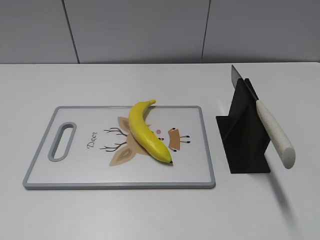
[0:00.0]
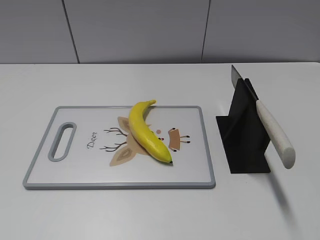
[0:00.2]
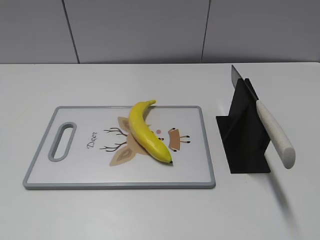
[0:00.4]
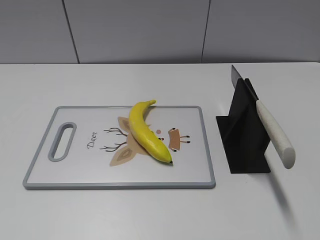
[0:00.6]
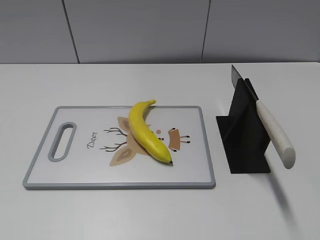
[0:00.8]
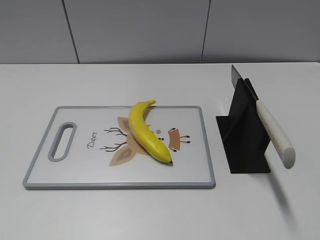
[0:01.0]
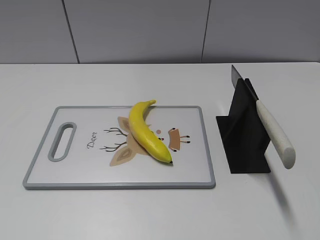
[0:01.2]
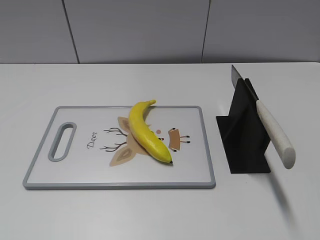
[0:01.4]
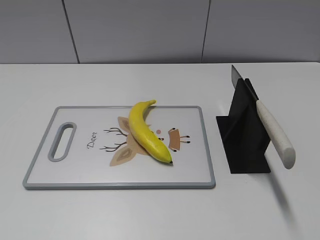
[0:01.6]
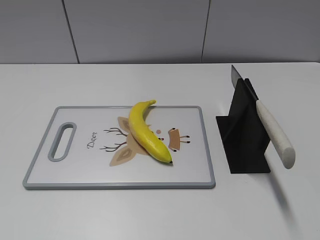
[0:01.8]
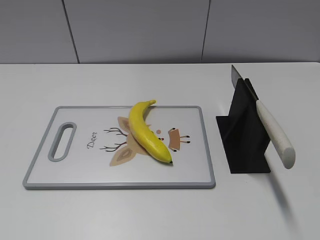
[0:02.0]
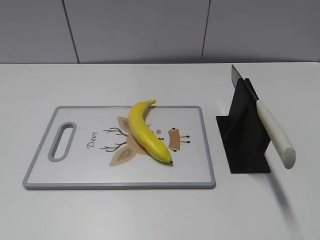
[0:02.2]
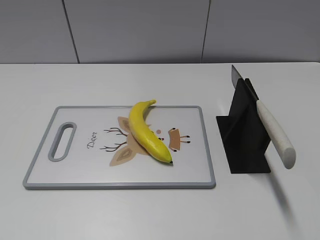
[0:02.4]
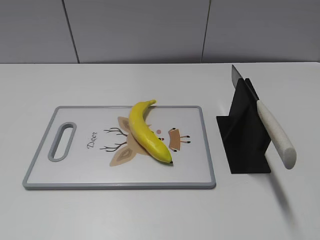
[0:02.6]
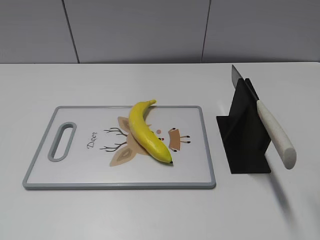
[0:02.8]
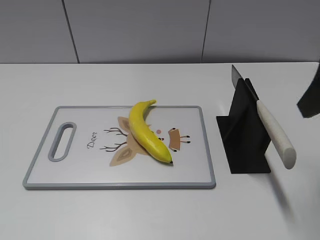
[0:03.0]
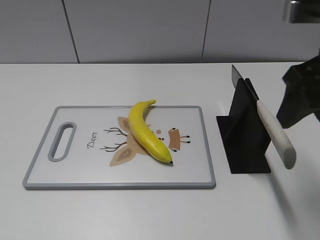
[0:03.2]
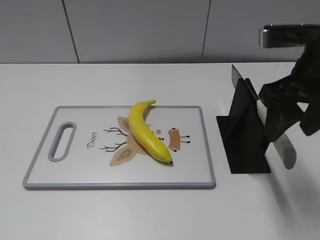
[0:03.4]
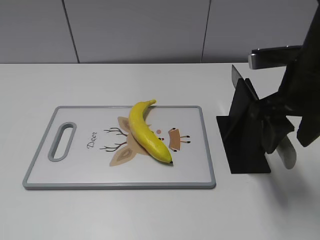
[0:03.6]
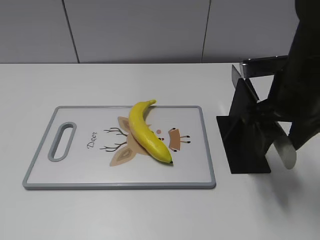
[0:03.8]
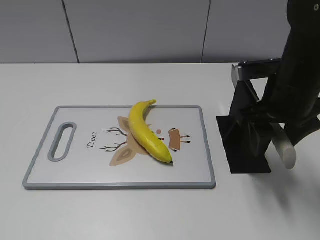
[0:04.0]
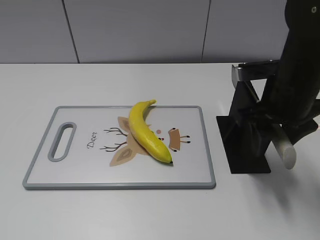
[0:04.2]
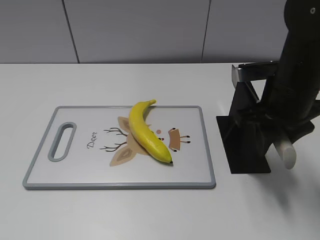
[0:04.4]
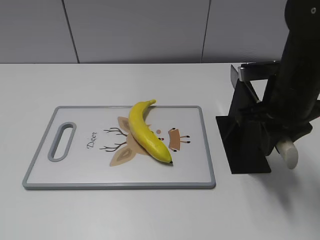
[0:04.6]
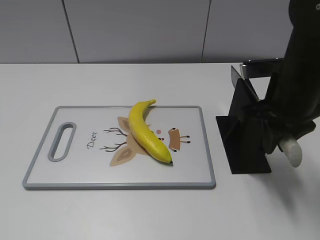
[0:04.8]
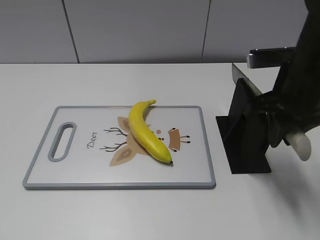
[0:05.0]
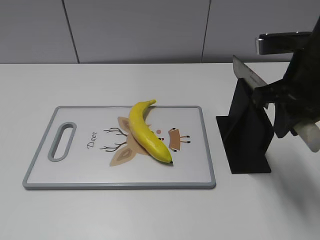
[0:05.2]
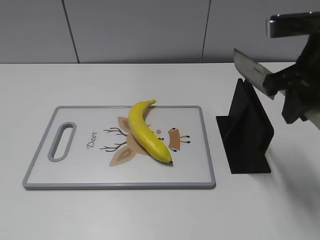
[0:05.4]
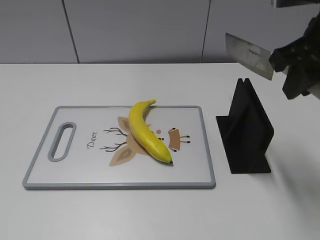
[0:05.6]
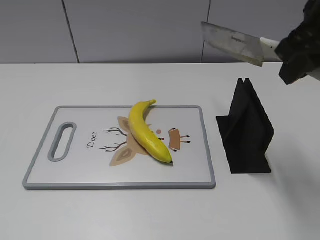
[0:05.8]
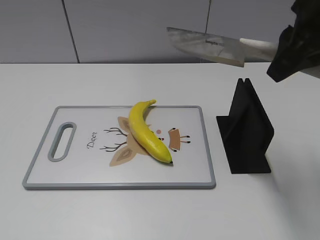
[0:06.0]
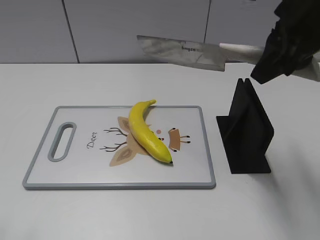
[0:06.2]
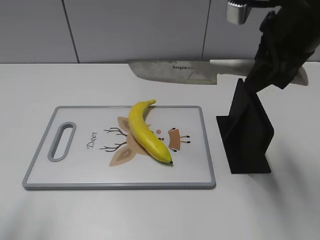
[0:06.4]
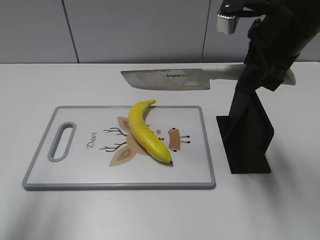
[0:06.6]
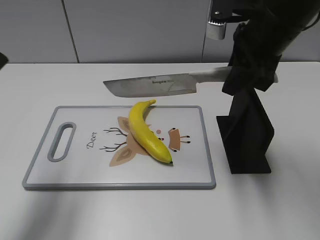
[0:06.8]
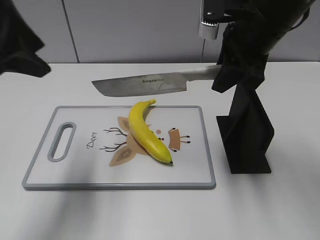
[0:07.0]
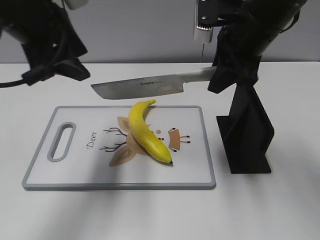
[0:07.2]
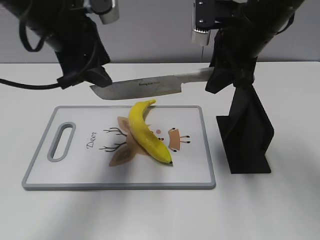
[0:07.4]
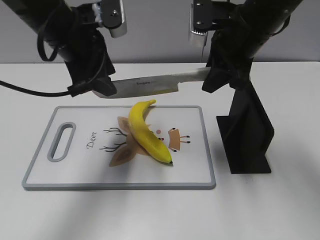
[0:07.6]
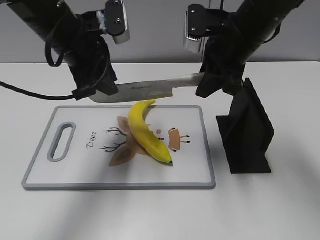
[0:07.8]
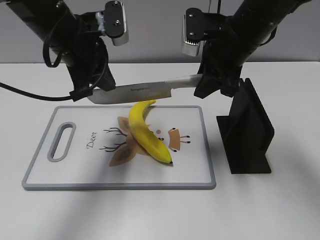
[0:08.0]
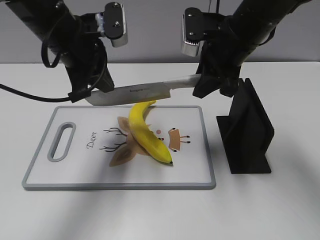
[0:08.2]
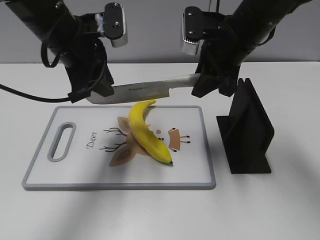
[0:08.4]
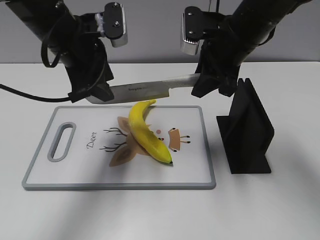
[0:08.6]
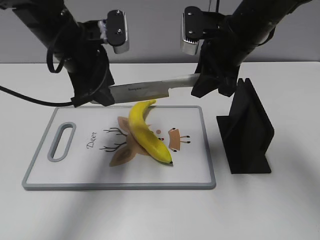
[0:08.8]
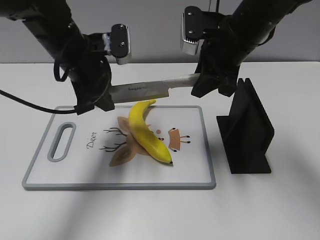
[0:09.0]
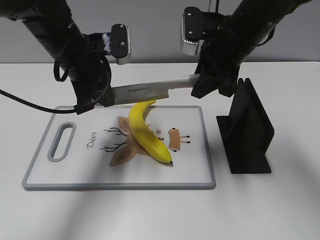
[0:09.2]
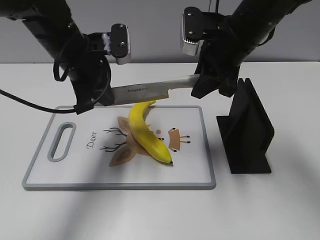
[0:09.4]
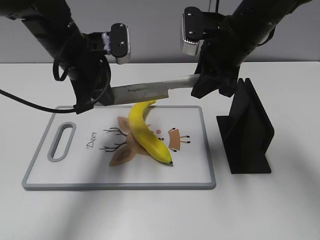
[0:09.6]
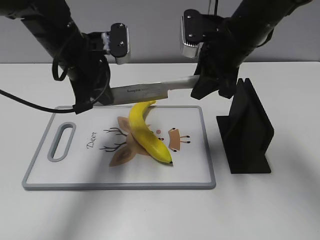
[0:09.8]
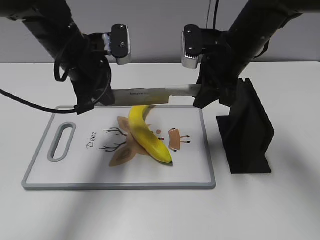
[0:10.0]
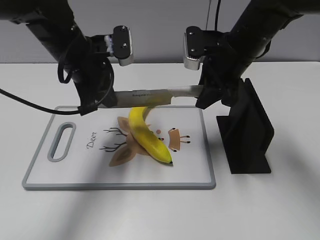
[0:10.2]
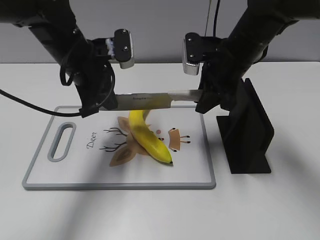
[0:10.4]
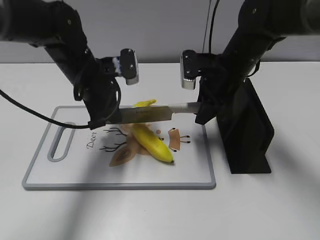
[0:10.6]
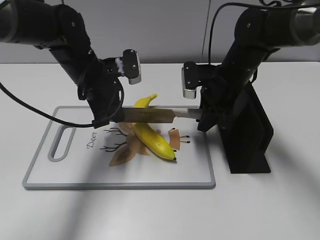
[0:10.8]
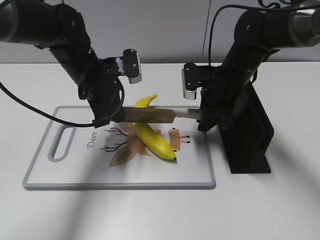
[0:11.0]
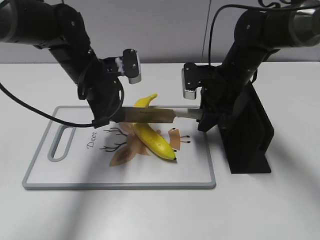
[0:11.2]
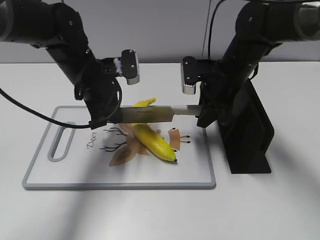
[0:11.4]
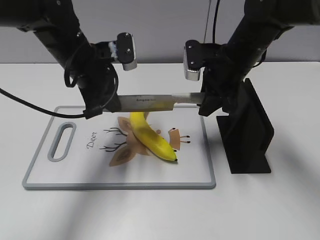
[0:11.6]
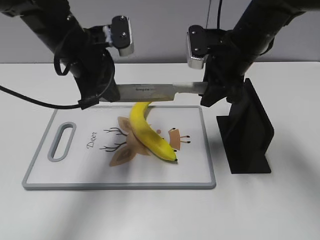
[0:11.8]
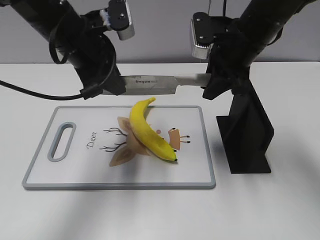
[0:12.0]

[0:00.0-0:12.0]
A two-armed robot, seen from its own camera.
Task of the whole recording: cut plastic banana.
Step, 0:00.0 to 0:05.8: Grab the knife handle with your right hand.
Step, 0:06.0 to 0:11.8: Lift the knife with your right hand.
0:01.6 to 0:03.0: The right gripper heads forward, covering roughly 25 cm.
0:03.0 to 0:04.4: The right gripper goes approximately 15 cm downward, forward and to the left, and closes.
0:04.4 to 0:06.0: The right gripper travels upward by some 15 cm, and closes its fingers.
0:06.0 to 0:07.6: The left gripper goes about 35 cm forward and to the right; the right gripper travels forward, downward and to the left by approximately 15 cm.
0:07.6 to 0:09.0: The left gripper closes, then opens again.
0:09.0 to 0:10.4: The right gripper ends up roughly 5 cm from where it was. The left gripper closes.
0:10.4 to 0:12.0: The left gripper ends up roughly 5 cm from where it was.

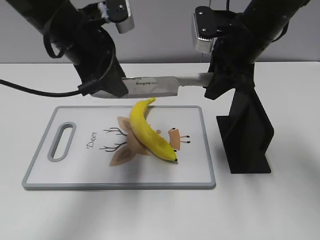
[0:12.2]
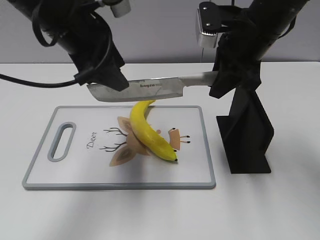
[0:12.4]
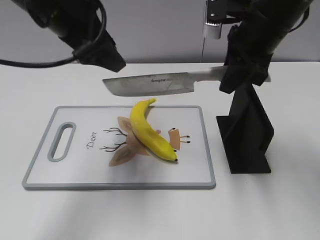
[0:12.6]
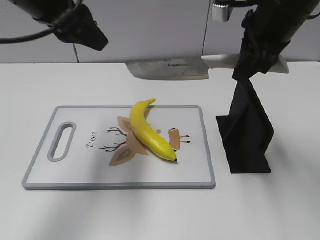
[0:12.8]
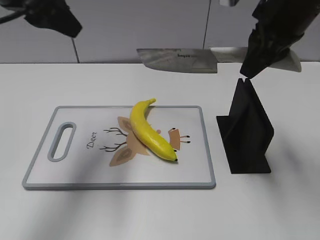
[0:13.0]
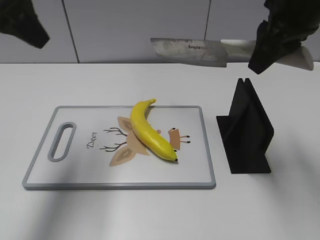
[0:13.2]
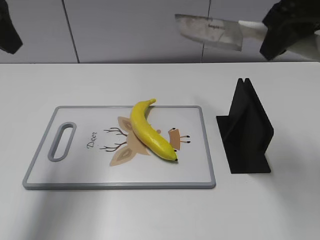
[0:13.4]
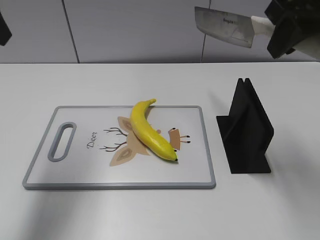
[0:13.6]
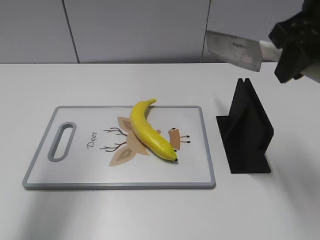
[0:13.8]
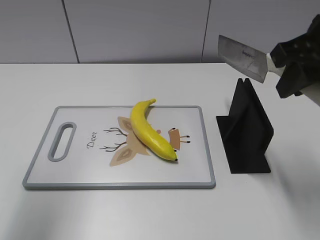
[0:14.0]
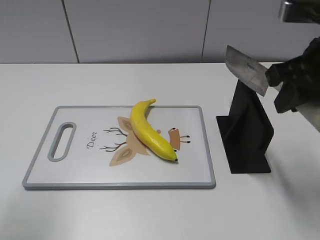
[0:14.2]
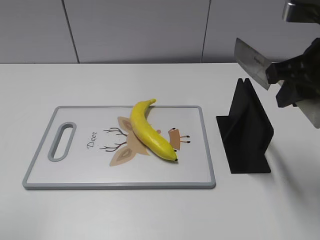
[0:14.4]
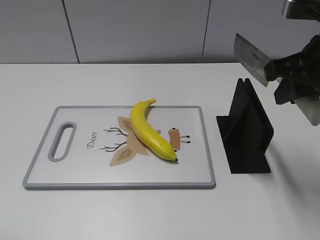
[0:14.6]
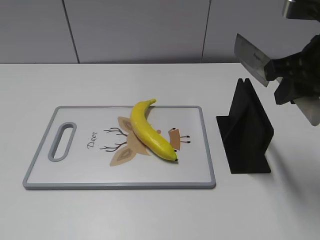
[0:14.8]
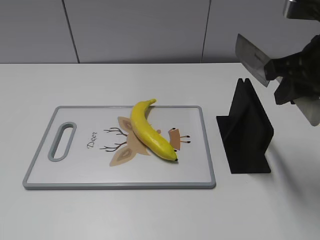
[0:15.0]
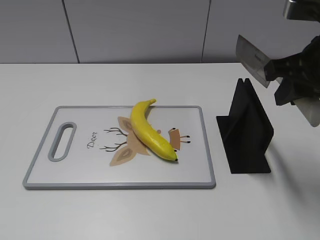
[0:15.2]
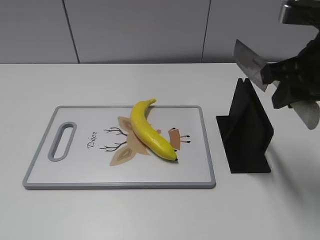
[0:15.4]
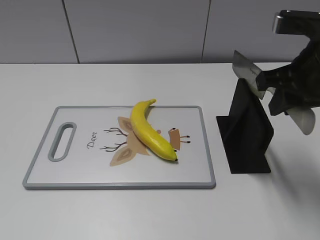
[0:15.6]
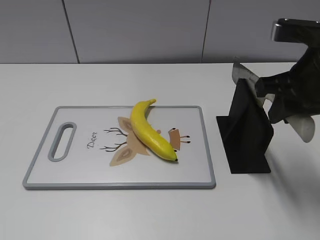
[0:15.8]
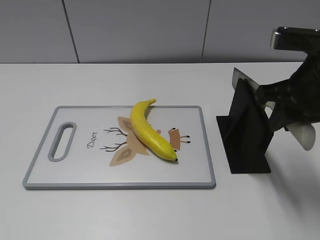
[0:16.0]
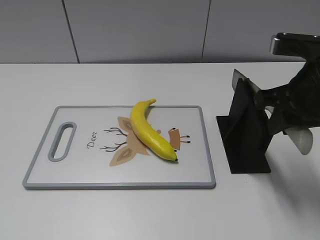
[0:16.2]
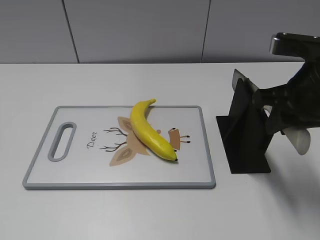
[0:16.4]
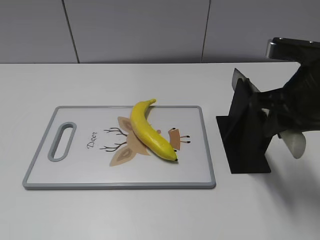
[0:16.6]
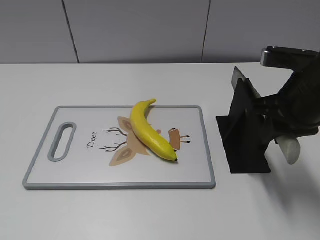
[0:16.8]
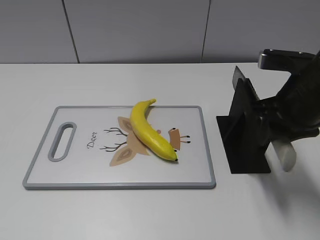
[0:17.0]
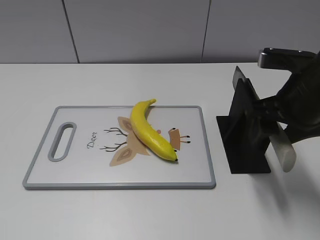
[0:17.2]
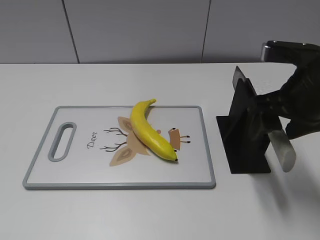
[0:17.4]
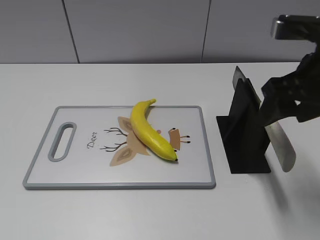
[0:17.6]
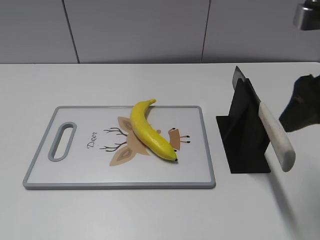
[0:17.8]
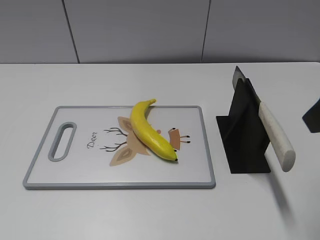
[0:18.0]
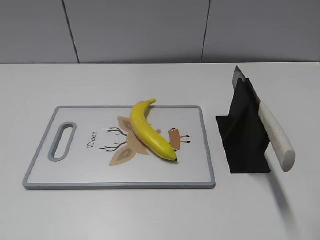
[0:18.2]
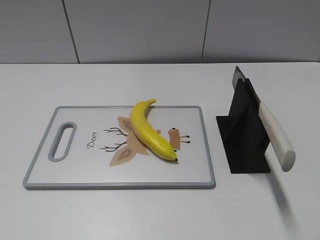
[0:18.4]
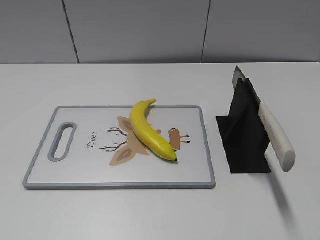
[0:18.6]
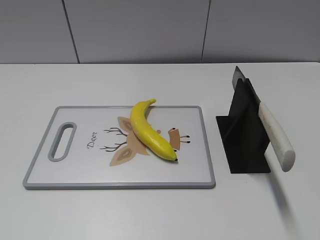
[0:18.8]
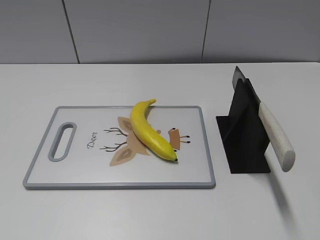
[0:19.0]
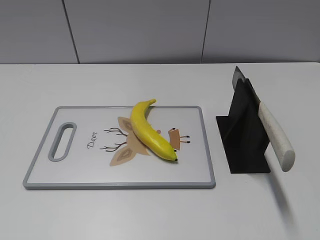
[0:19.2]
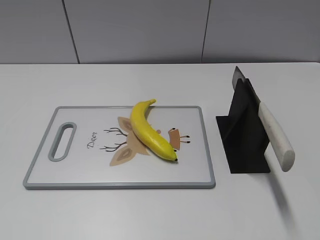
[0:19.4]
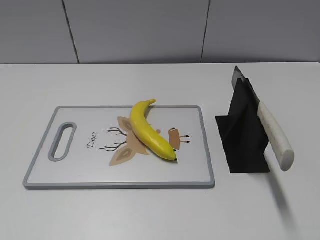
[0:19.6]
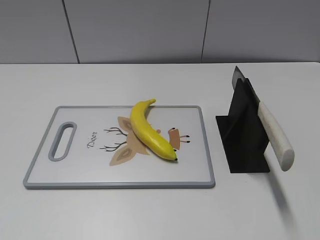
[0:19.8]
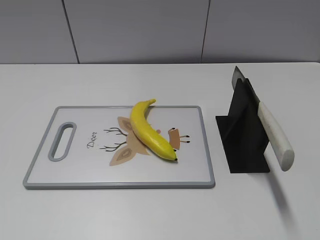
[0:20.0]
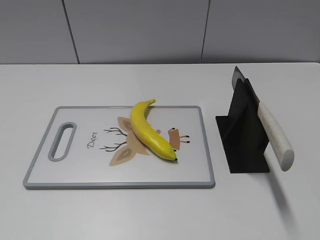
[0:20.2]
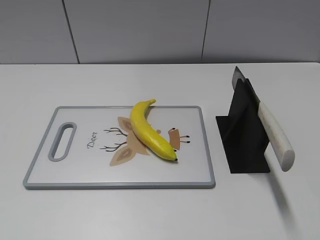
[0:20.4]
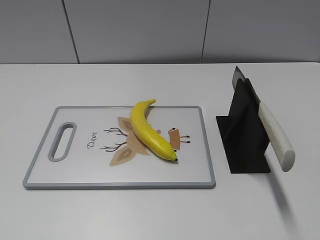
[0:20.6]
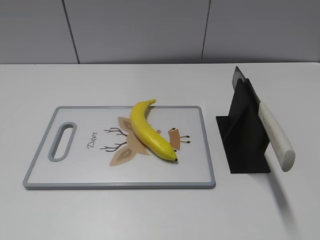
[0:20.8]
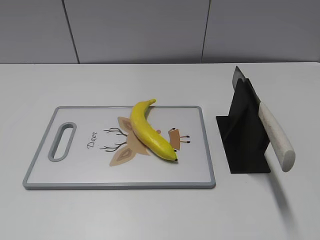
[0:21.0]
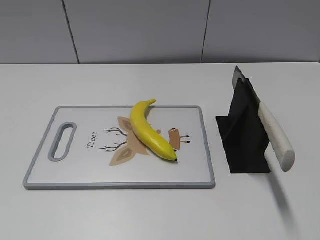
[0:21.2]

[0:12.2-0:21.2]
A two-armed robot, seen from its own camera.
Task of the whole recording: cut plastic banana.
Step, 0:12.2 to 0:13.2: Cut the banana with your right hand.
Step, 0:13.4 to 0:14.6: Lift the knife with your right hand.
Step, 0:14.8 to 0:21.2: Place the knife on the storage rack with your right hand.
0:12.2 to 0:13.8: The right gripper heads backward, upward and to the right, covering some 15 cm. Meanwhile the left gripper moves upward, to the left and backward, about 20 cm.
0:13.8 to 0:15.2: The left gripper moves backward and downward, roughly 30 cm. The right gripper travels downward by some 5 cm.
0:15.2 to 0:16.6: The right gripper moves some 5 cm.
0:16.6 to 0:18.2: The right gripper is displaced upward and backward by about 15 cm, and opens its fingers.

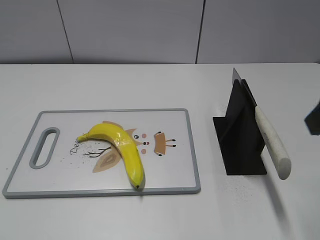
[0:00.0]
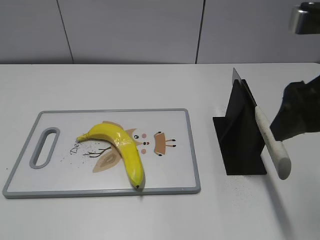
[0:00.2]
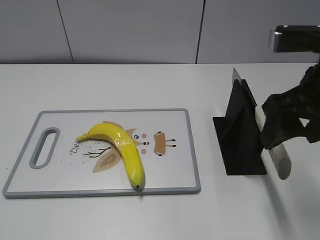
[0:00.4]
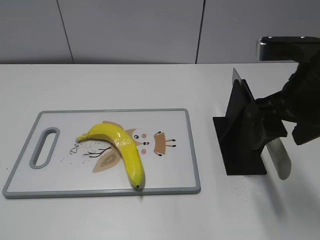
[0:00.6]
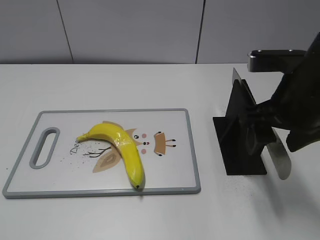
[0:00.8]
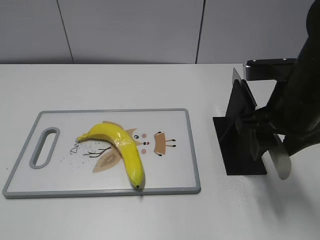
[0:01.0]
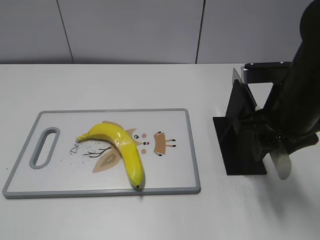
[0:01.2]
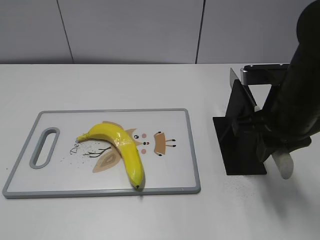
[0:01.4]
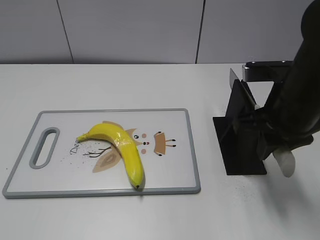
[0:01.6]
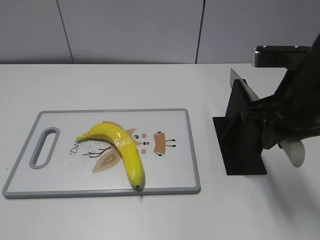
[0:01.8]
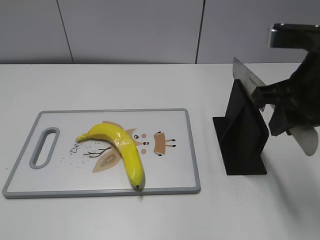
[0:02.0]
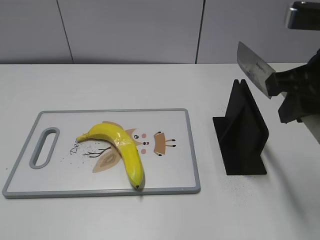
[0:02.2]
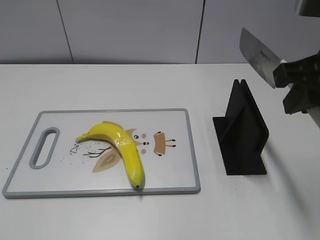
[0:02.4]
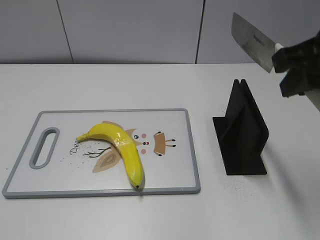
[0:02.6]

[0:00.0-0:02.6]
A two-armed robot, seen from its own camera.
Task of the whole recording: cut plastic banana.
Step, 0:00.0 to 0:02.4: Grab the knife handle with your right hand.
0:00.0 to 0:01.2: The right gripper goes roughly 15 cm downward and forward, and closes its fingers.
0:01.2 to 0:02.6: The right gripper goes approximately 10 cm upward.
